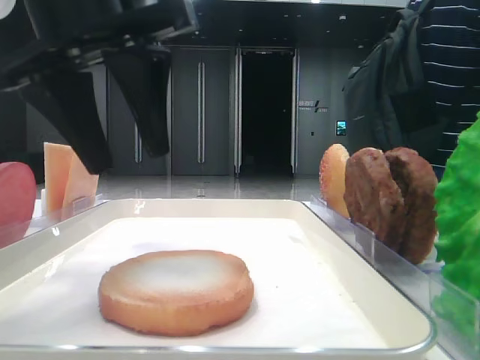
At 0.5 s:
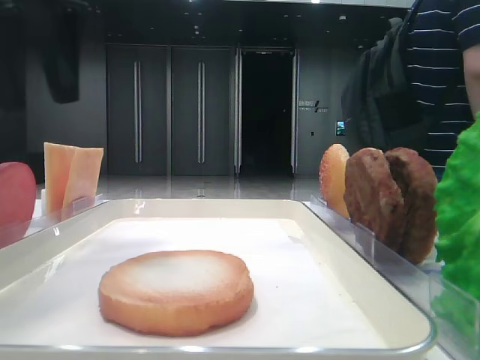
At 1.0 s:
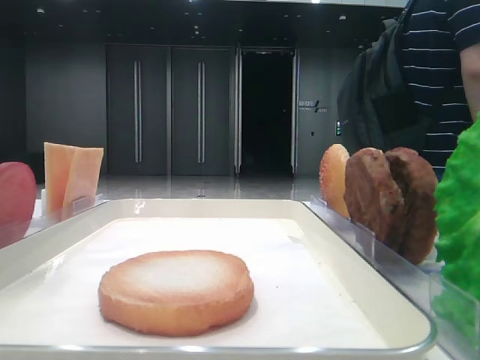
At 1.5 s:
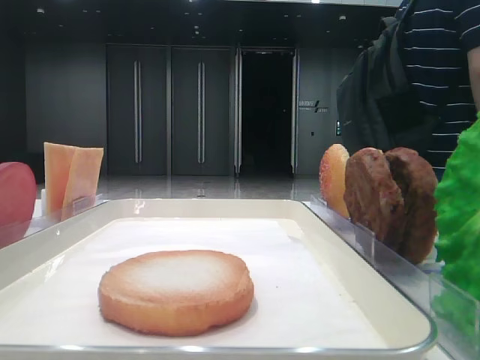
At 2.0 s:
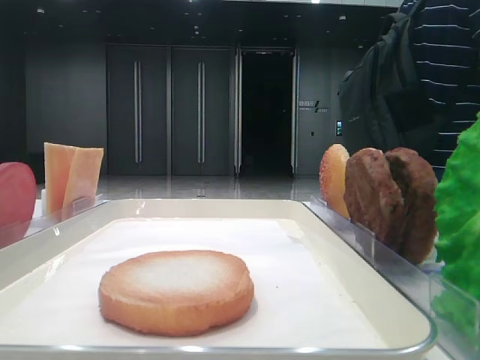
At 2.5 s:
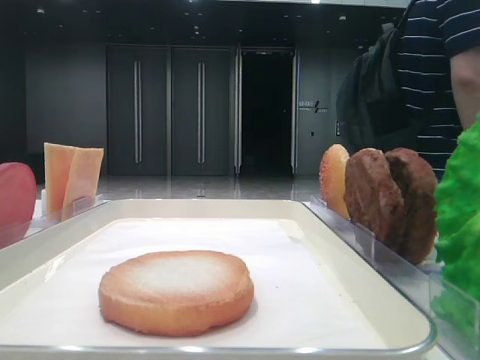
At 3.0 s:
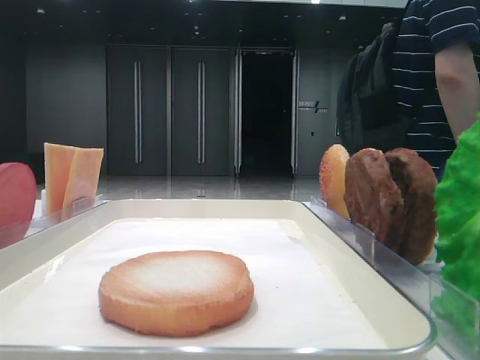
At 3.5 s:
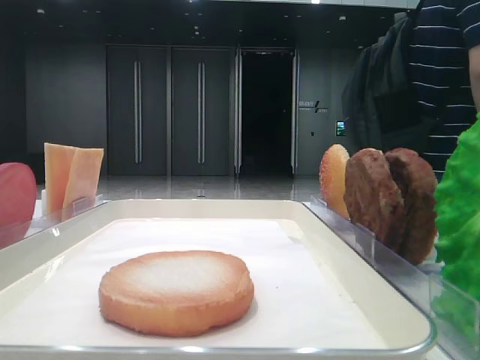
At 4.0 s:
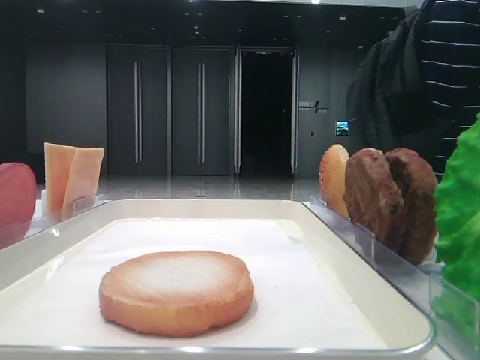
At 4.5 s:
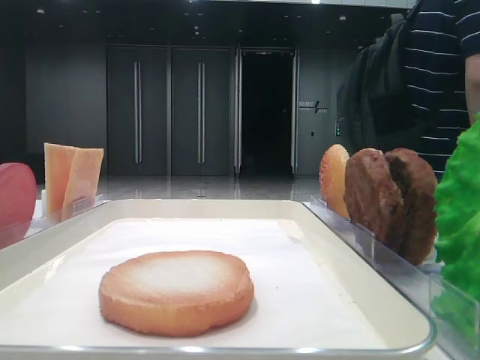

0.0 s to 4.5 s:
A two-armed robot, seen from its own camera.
0.0 to 2.0 s: The left gripper goes roughly 20 cm to the left and backward.

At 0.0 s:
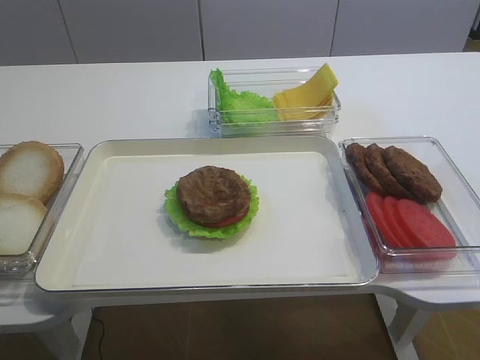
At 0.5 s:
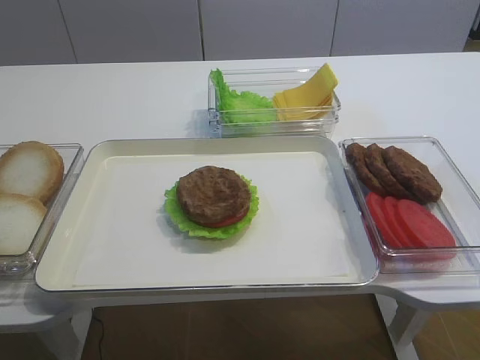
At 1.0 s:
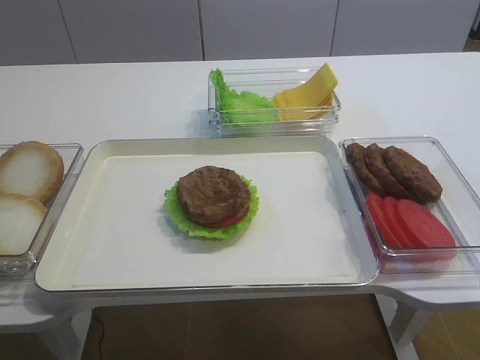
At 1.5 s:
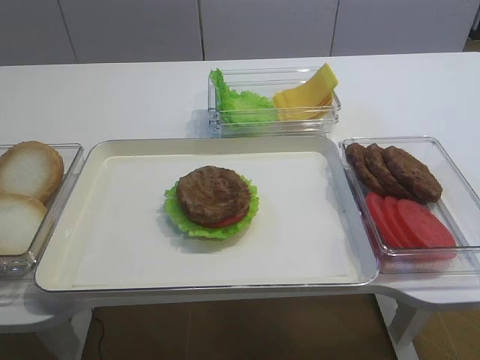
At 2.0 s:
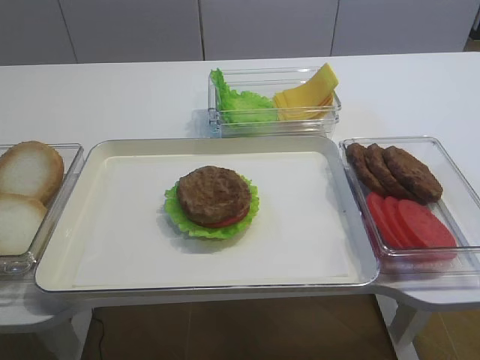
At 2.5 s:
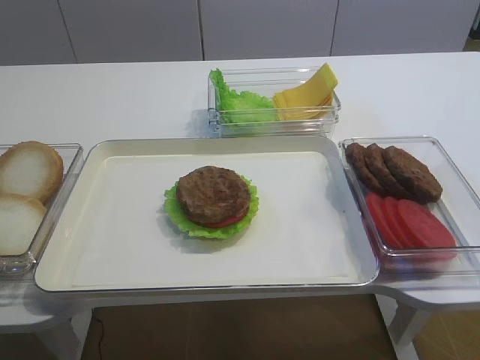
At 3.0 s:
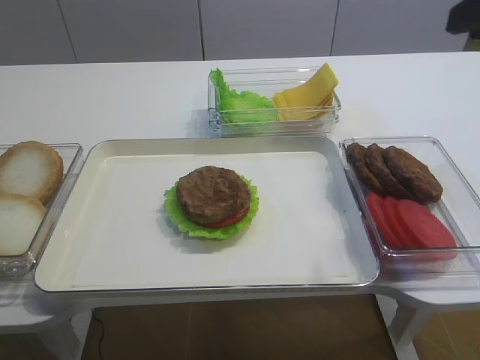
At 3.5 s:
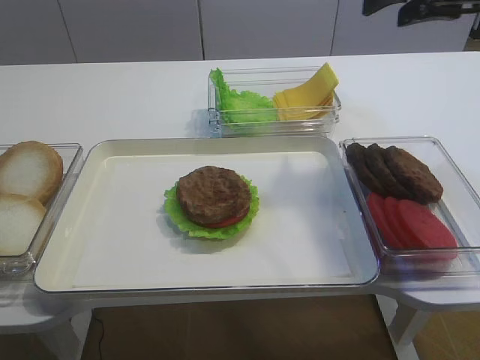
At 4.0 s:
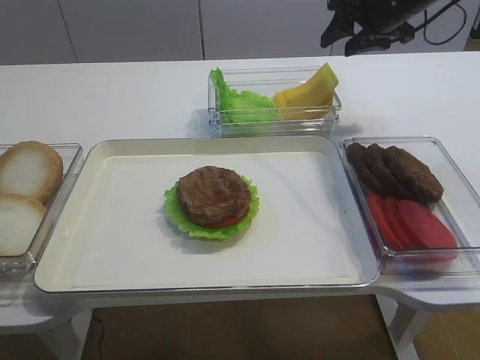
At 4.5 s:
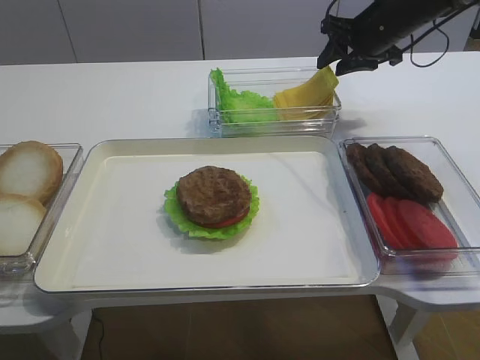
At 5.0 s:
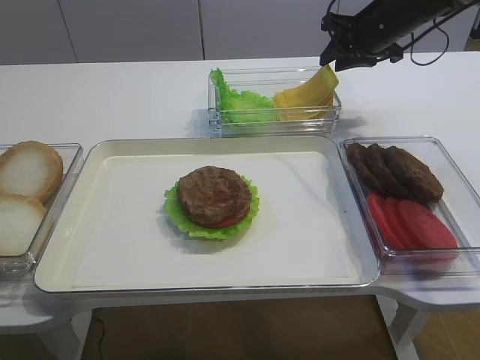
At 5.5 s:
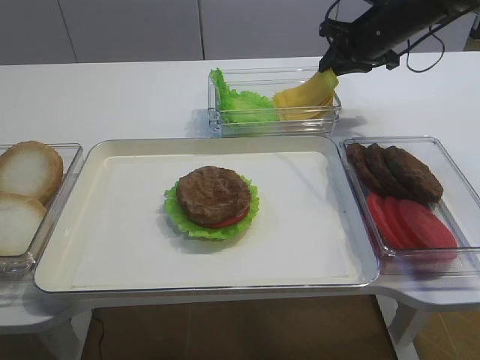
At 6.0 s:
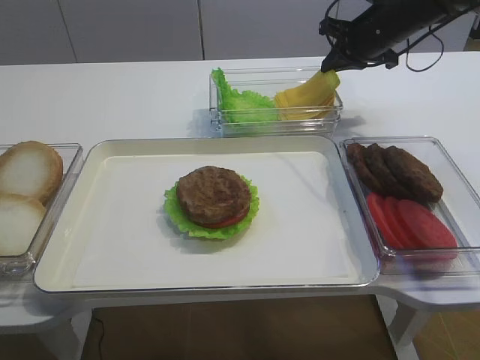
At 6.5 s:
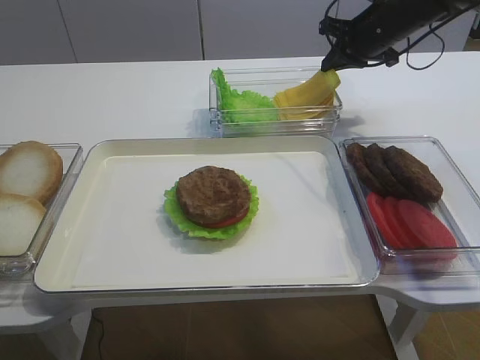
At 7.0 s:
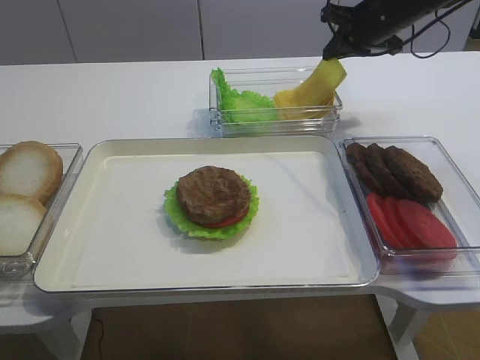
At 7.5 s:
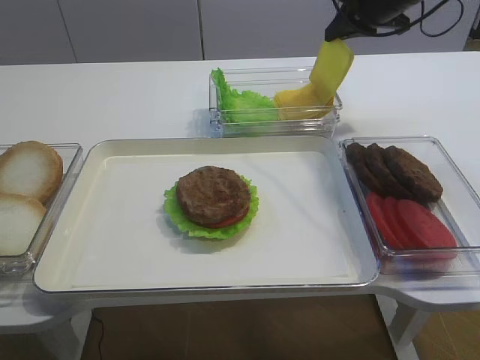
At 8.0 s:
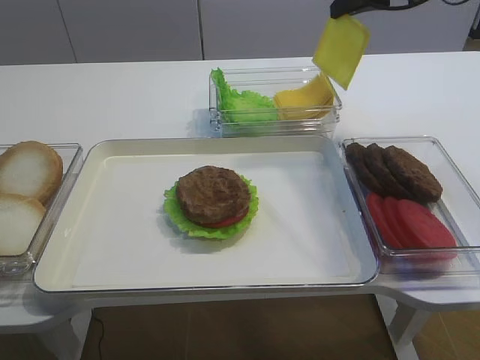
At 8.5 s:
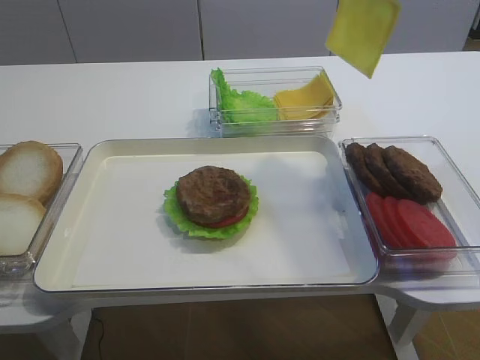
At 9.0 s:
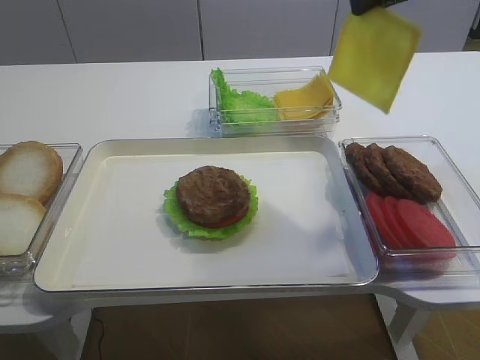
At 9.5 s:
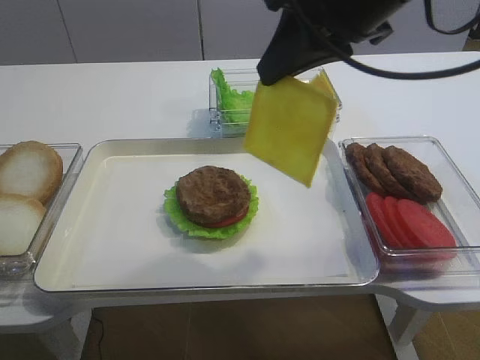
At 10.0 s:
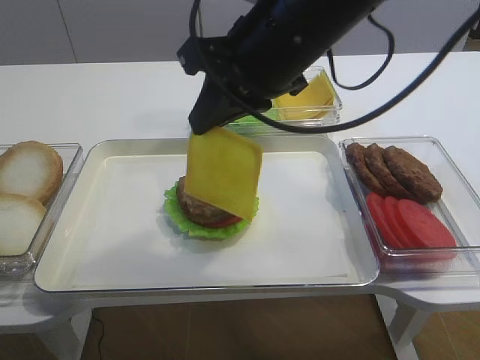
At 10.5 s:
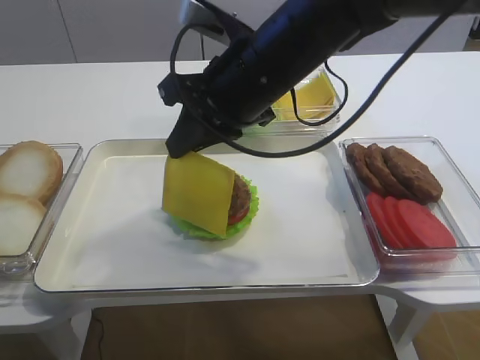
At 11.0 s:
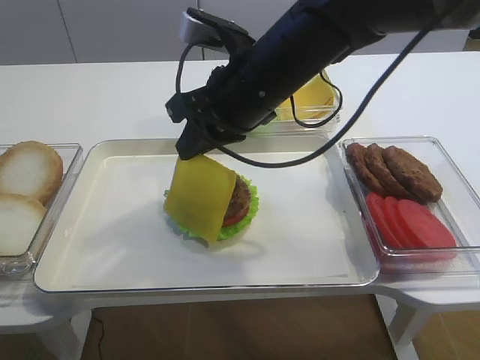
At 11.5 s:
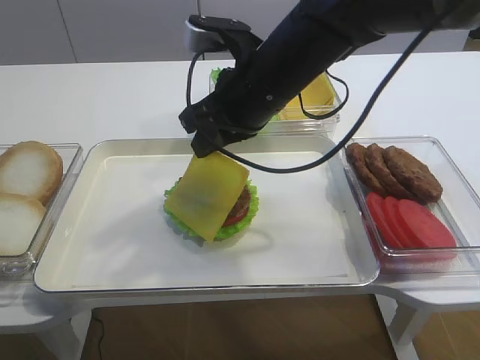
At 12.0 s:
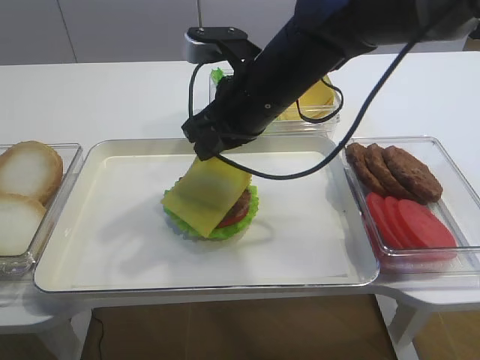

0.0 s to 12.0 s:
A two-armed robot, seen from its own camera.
Step, 0.0 to 7.5 s: Pick up the cheese slice with the right gripper.
2.0 to 4.0 s: The right gripper is displaced forward by some 50 cm.
4.0 to 6.0 s: The right gripper moves approximately 5 cm, and closes up.
6.0 to 8.0 s: The right gripper heads upward and backward, covering about 10 cm.
8.0 to 10.0 s: The right gripper goes some 25 cm backward and to the left.
10.0 to 12.0 s: The right gripper moves downward, approximately 10 cm.

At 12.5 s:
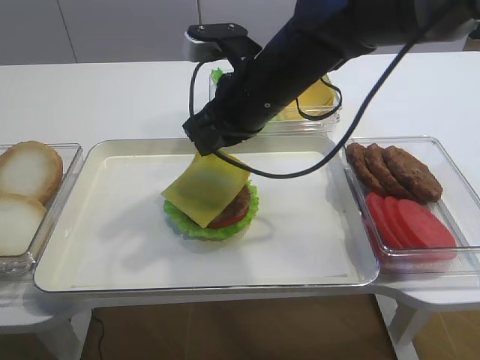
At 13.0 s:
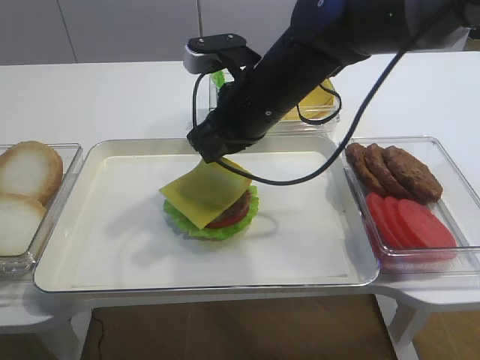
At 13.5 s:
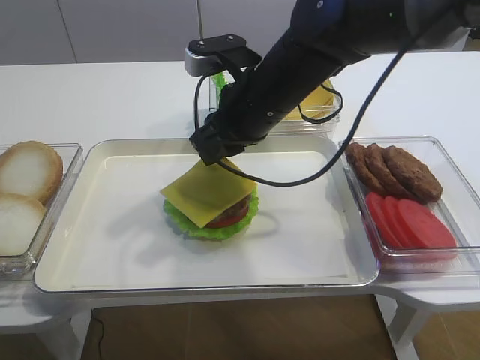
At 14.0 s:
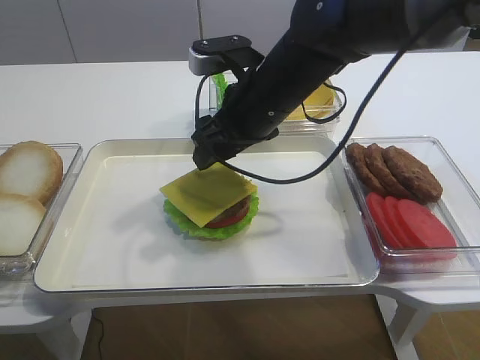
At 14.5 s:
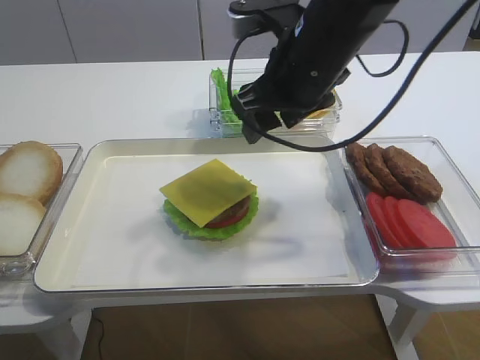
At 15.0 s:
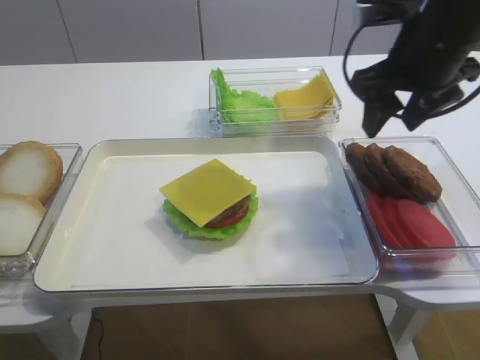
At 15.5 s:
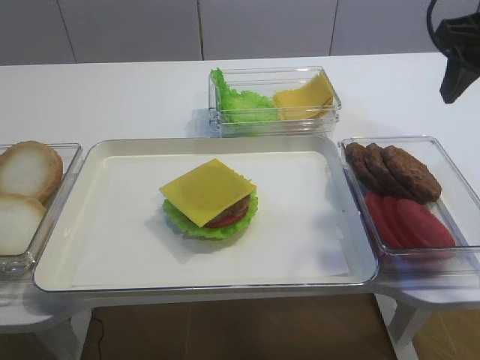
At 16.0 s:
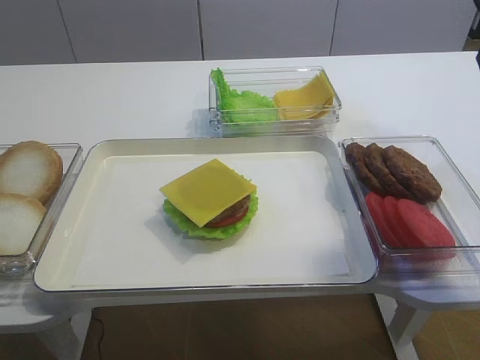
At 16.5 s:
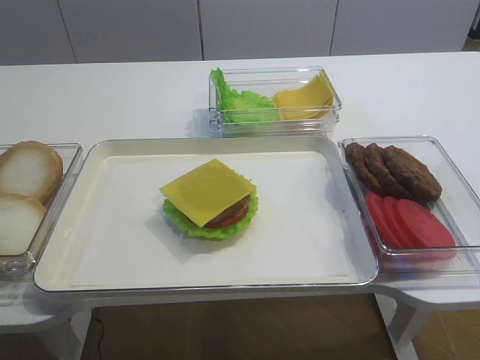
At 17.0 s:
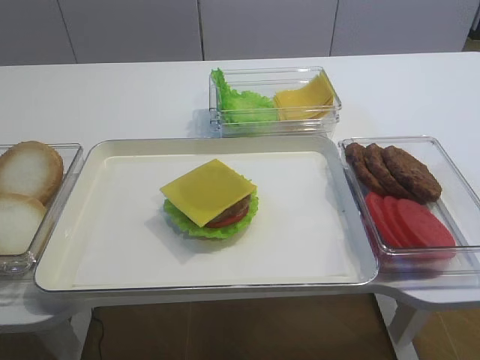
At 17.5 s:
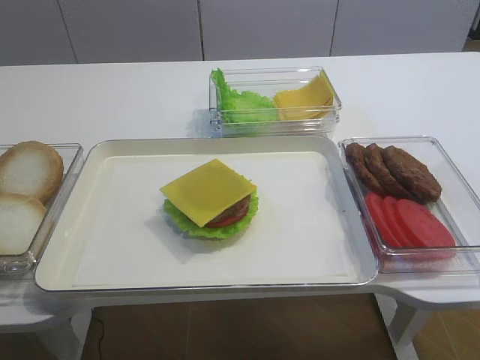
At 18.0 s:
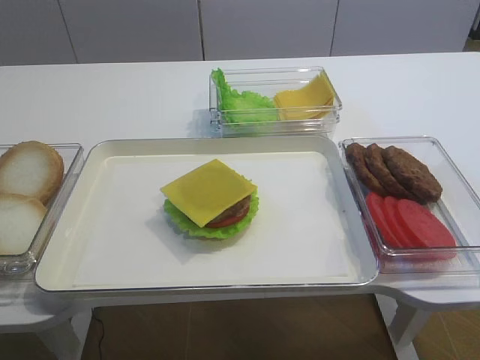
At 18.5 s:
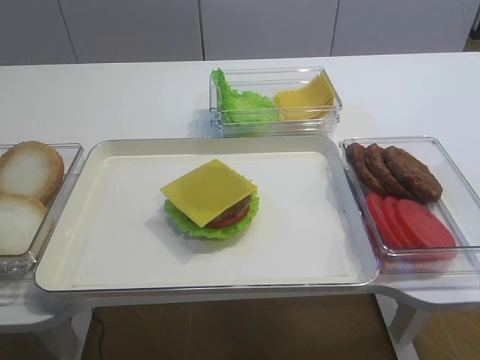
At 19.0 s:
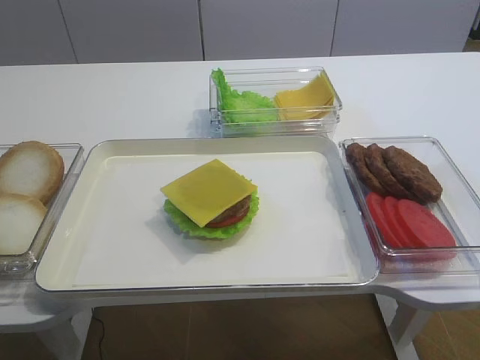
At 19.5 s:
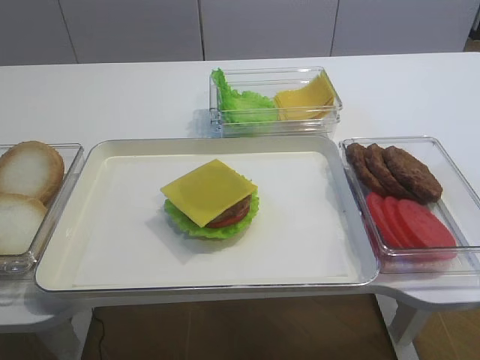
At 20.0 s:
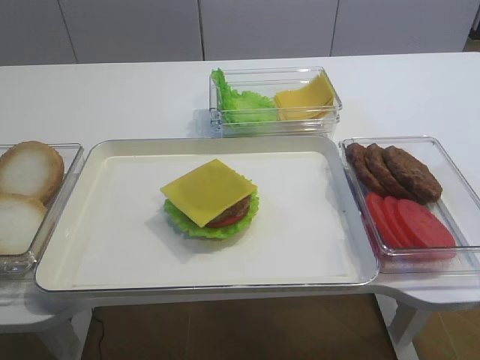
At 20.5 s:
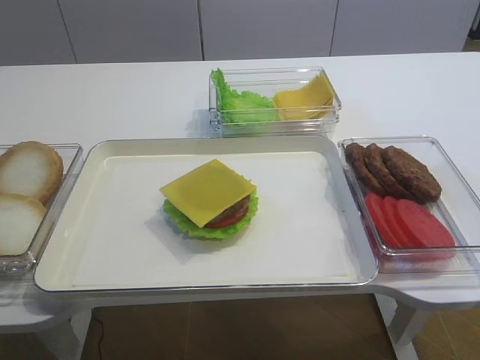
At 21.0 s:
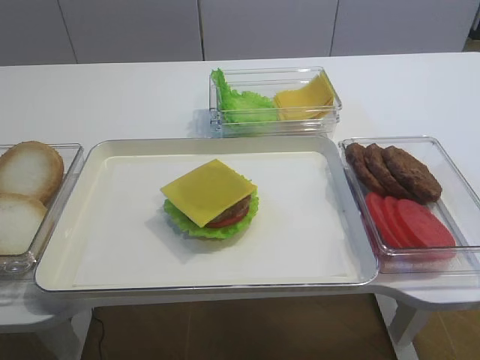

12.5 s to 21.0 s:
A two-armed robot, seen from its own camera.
12.5 to 14.5 s: The right gripper shifts by some 5 cm, and opens.
14.5 to 16.5 s: The right gripper heads to the right, backward and upward, covering approximately 25 cm.

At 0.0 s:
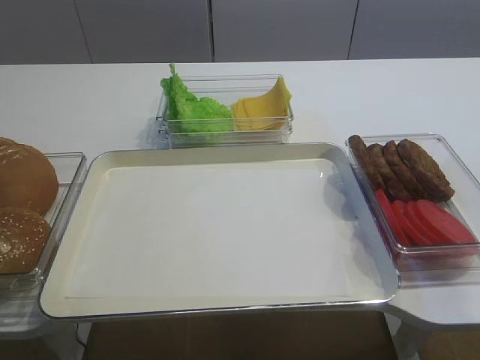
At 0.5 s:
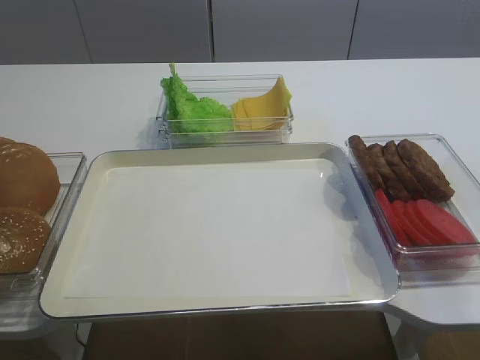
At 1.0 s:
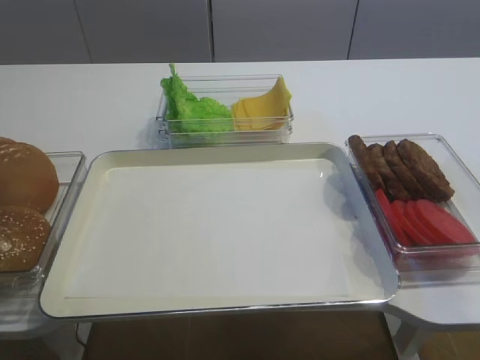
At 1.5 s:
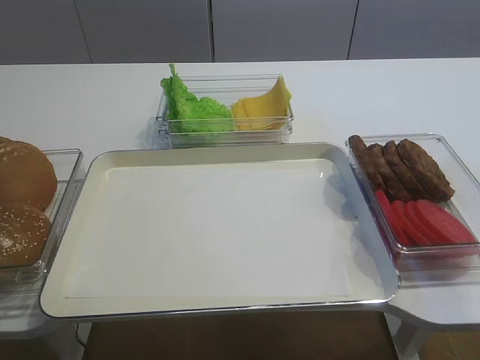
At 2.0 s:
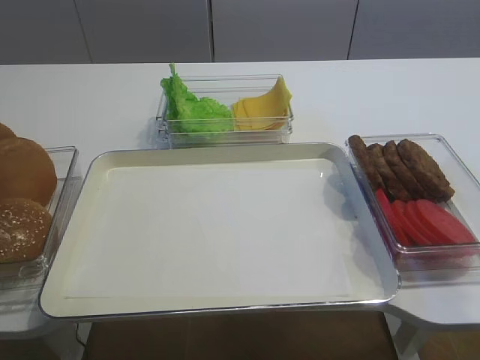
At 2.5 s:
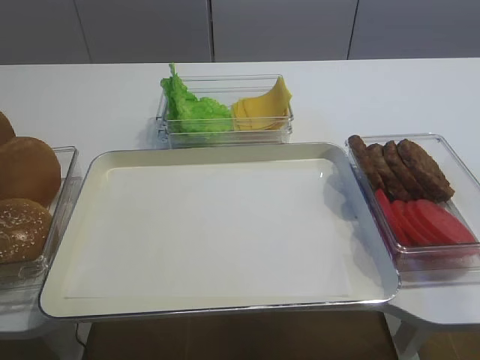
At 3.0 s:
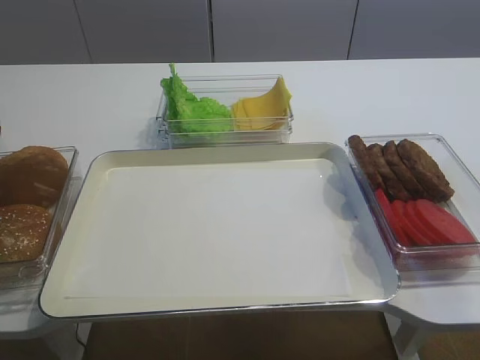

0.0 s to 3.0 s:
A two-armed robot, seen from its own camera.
0.0 to 1.5 s: The left gripper closes.
1.5 to 3.0 s: The left gripper goes some 5 cm upward.
